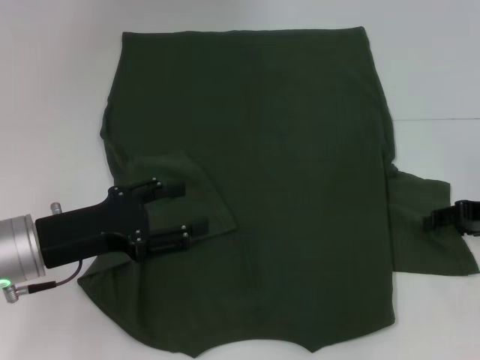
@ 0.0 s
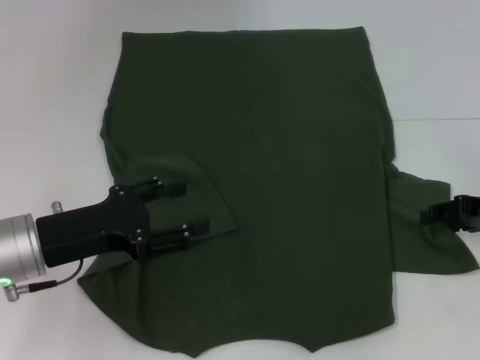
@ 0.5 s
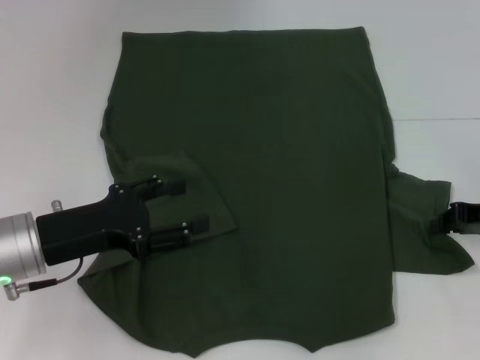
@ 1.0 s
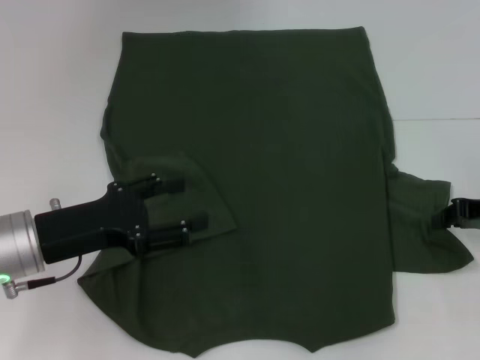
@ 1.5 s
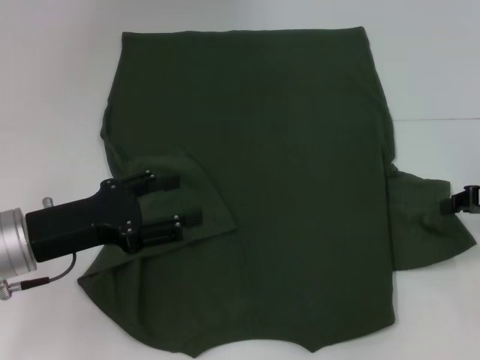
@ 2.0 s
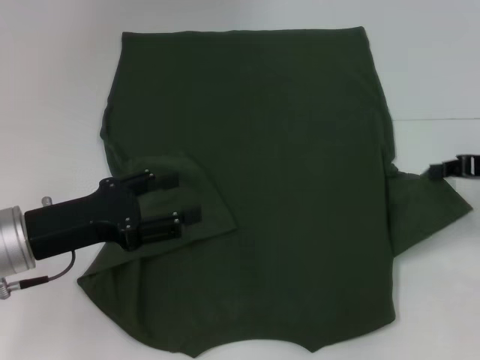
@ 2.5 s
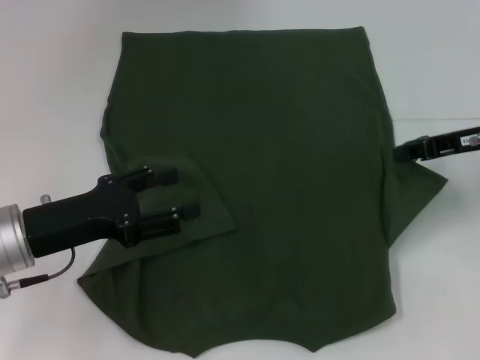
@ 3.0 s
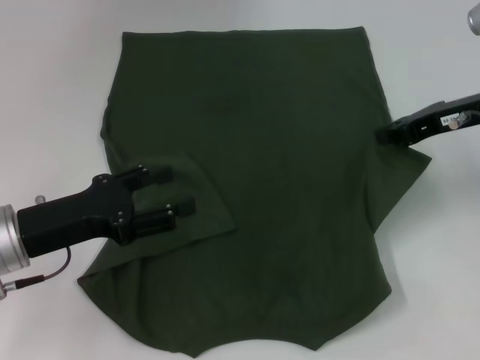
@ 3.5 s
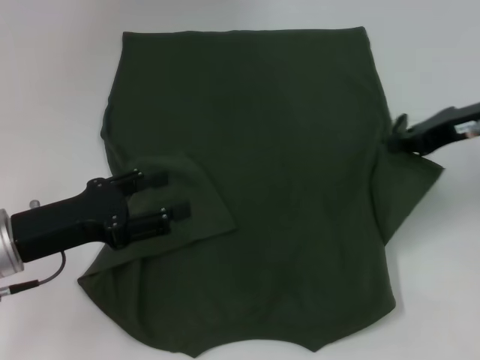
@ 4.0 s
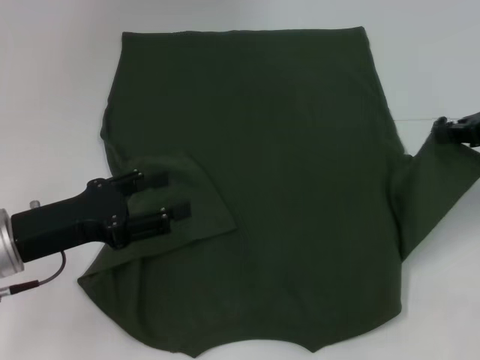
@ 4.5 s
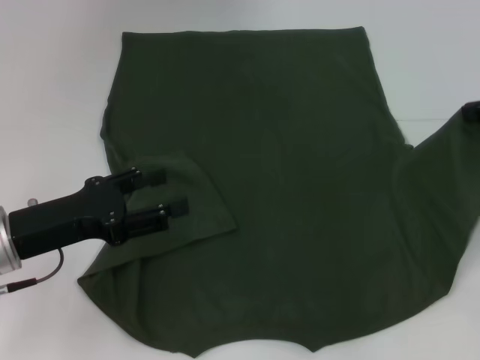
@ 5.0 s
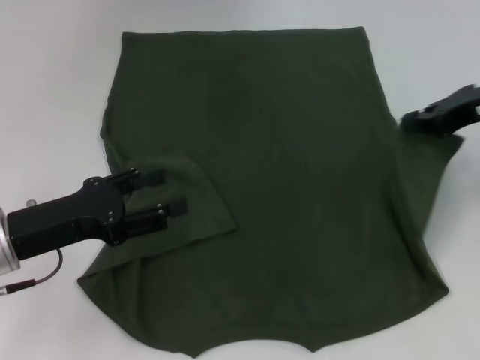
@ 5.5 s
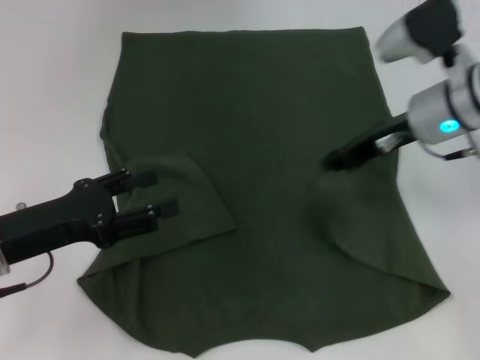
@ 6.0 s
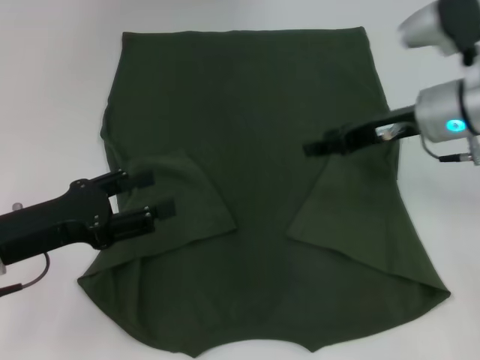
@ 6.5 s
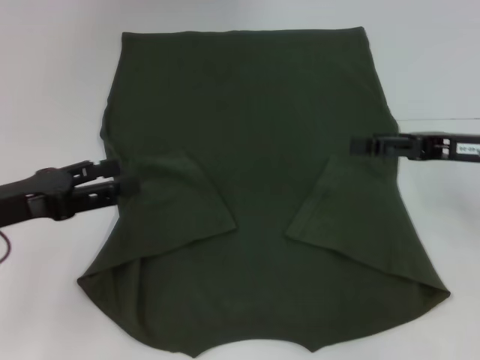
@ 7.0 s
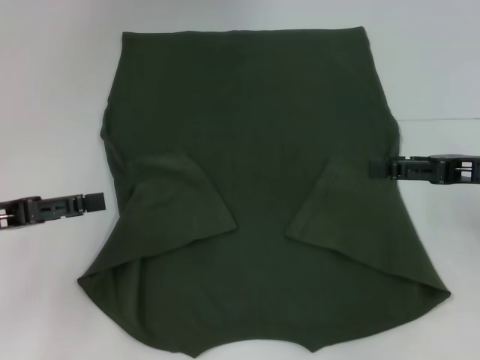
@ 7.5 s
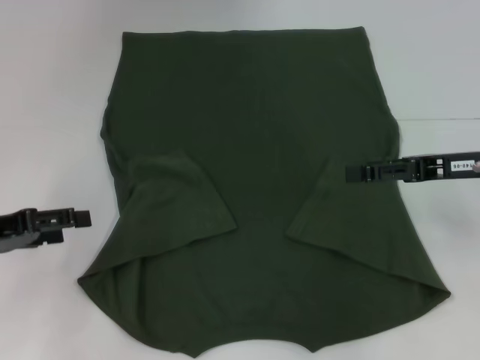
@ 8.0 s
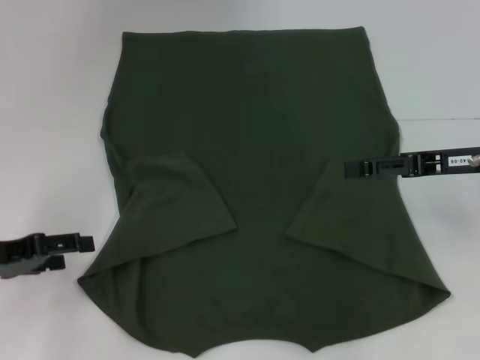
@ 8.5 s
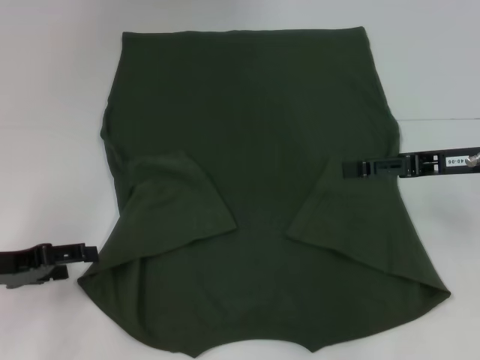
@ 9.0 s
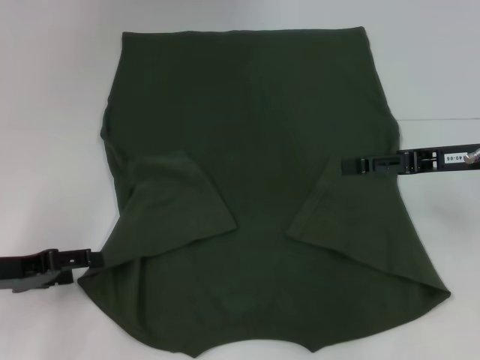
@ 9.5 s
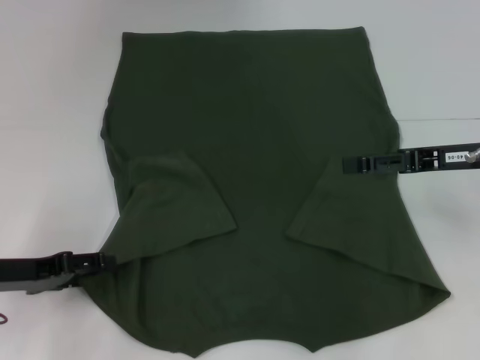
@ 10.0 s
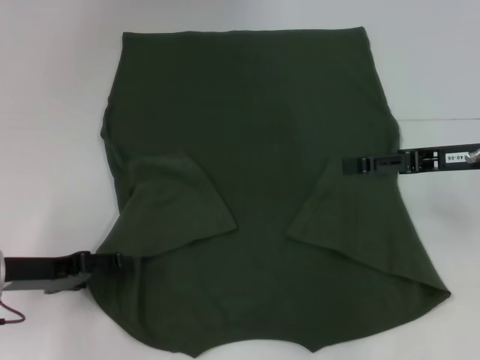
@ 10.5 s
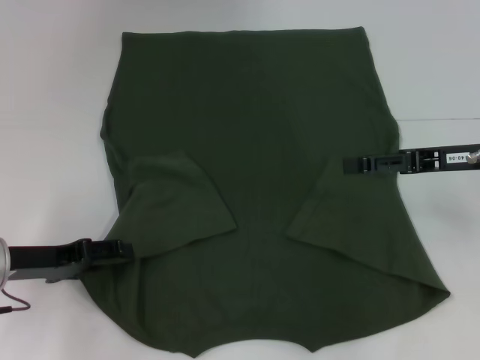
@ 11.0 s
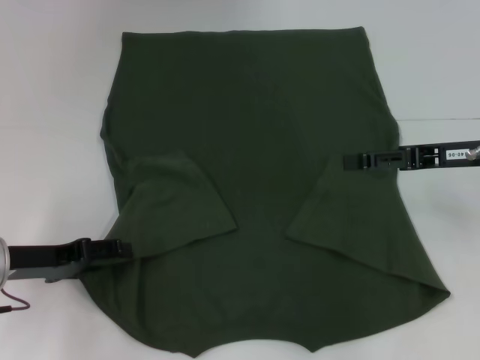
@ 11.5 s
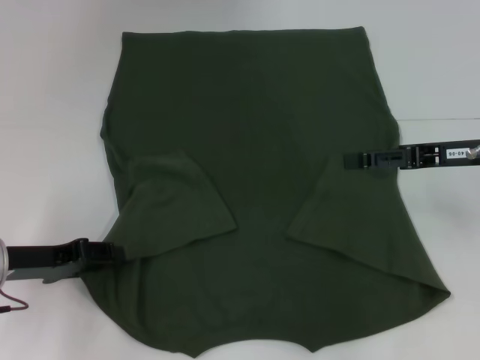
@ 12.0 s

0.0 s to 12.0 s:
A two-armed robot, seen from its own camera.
Step, 0.0 to 6.0 s: Fold the bottom right sleeve with your right hand.
0.0 to 2.0 s: The right gripper closes.
2.0 to 4.0 s: The right gripper shifts roughly 10 cm upward and to the left.
4.0 to 6.0 s: The right gripper goes roughly 10 cm to the left.
6.0 to 8.0 s: The right gripper is displaced to the right and backward by some 10 cm, and opens its fingers; the left gripper travels to the left by some 5 cm.
8.0 to 10.0 s: The left gripper heads downward, covering some 5 cm.
10.0 to 12.0 s: The grippers stay close to where they were, moving slightly.

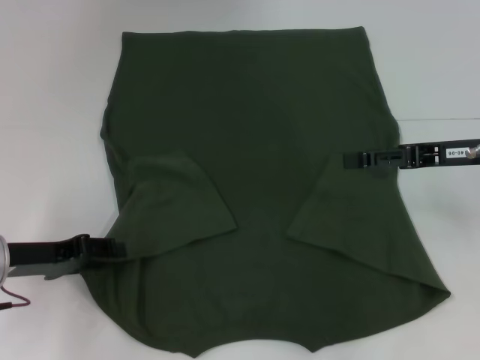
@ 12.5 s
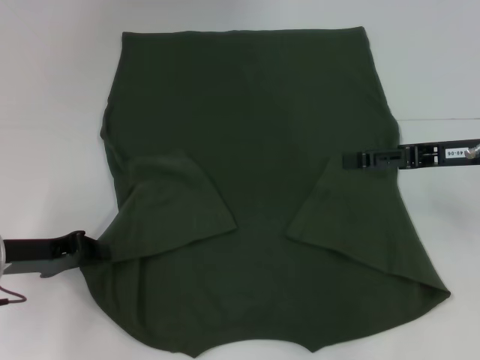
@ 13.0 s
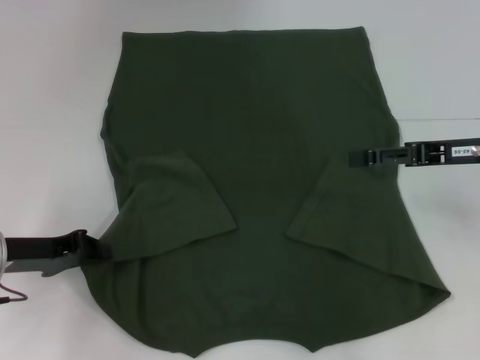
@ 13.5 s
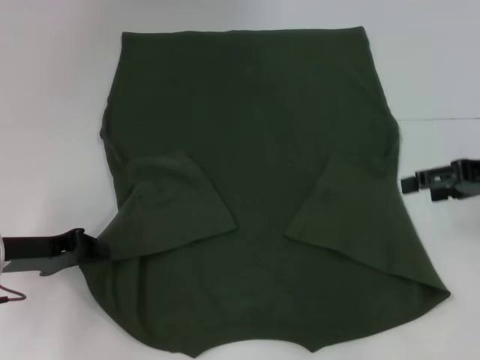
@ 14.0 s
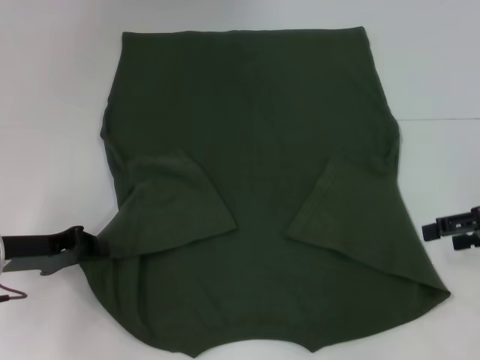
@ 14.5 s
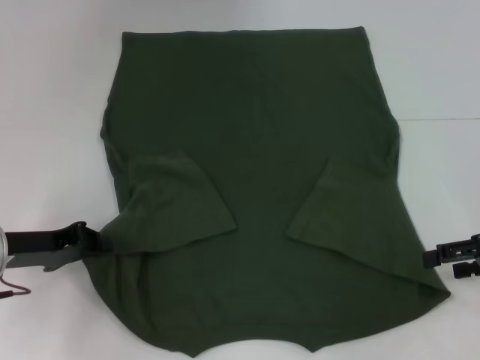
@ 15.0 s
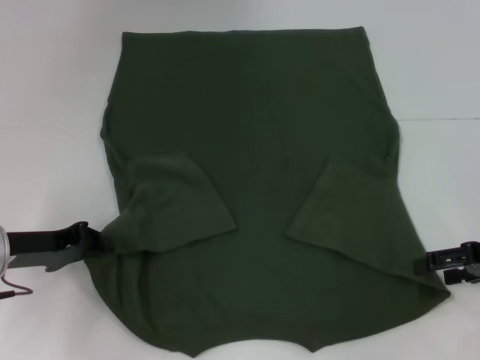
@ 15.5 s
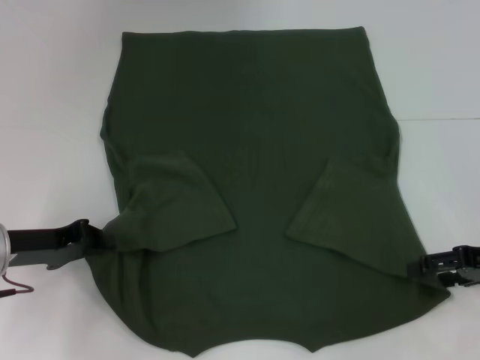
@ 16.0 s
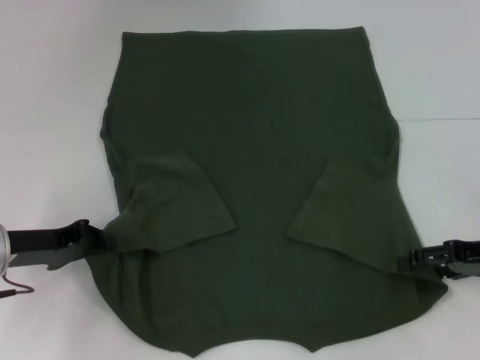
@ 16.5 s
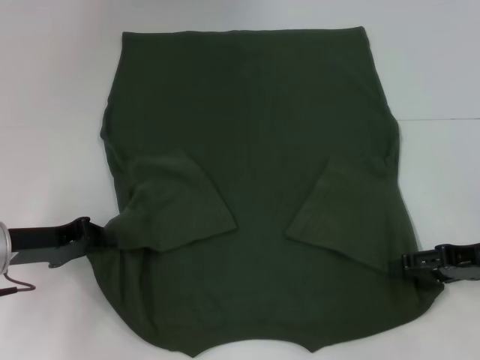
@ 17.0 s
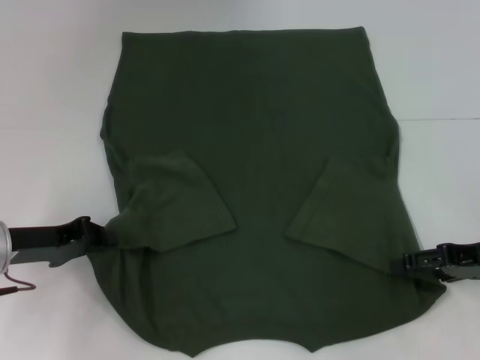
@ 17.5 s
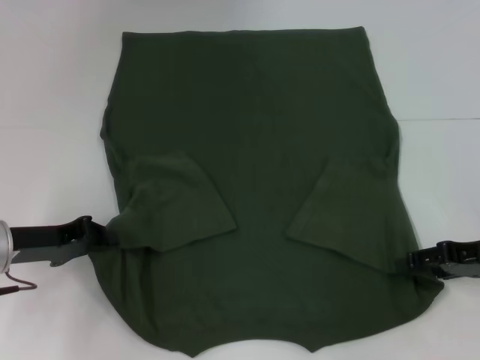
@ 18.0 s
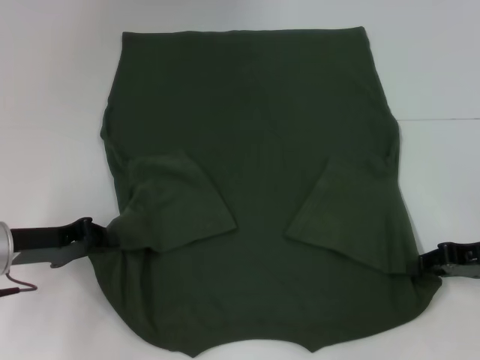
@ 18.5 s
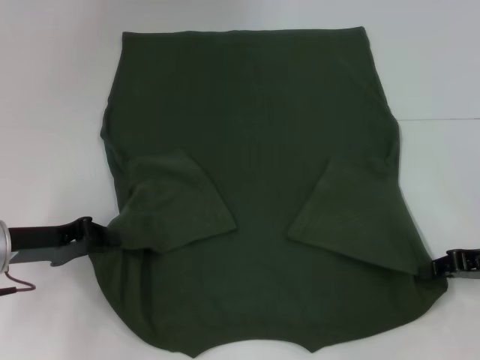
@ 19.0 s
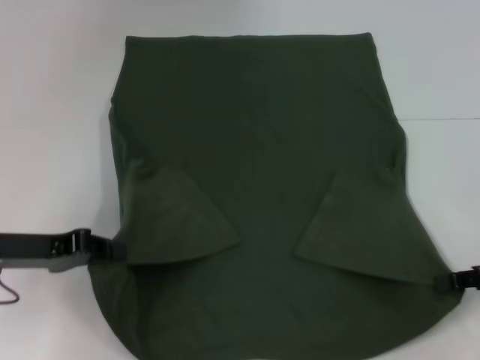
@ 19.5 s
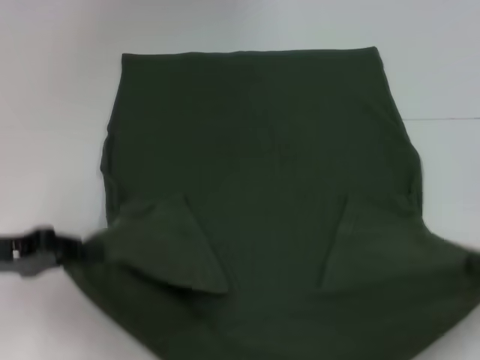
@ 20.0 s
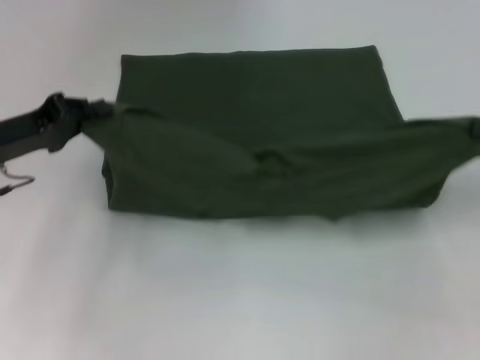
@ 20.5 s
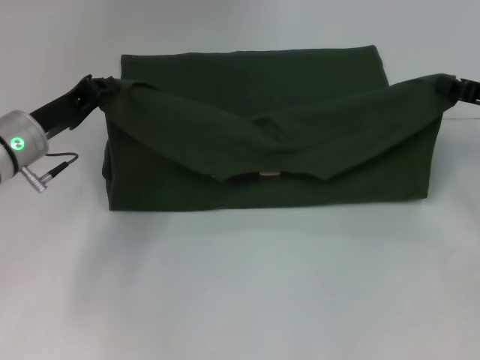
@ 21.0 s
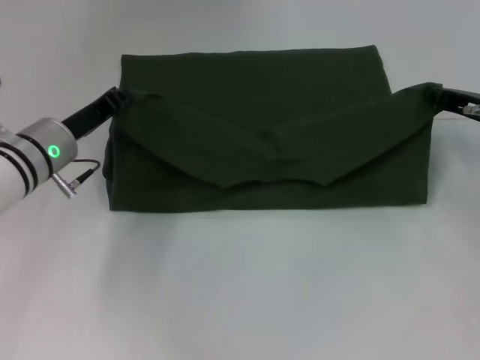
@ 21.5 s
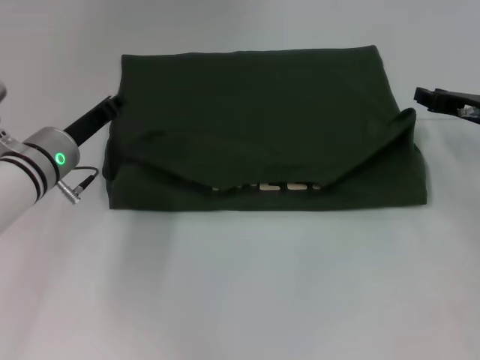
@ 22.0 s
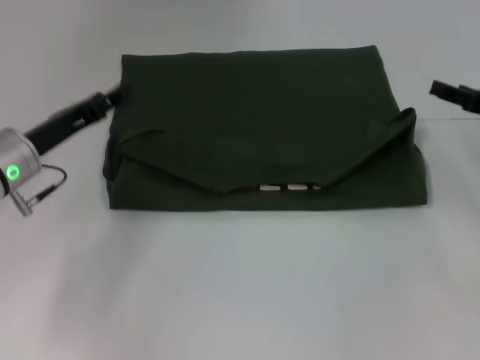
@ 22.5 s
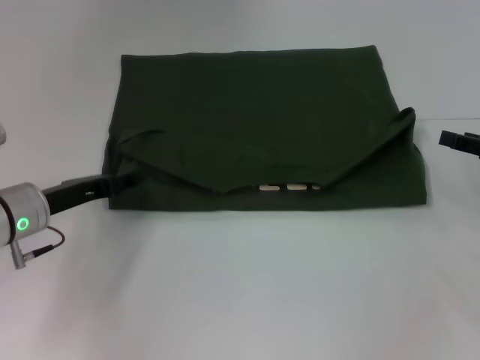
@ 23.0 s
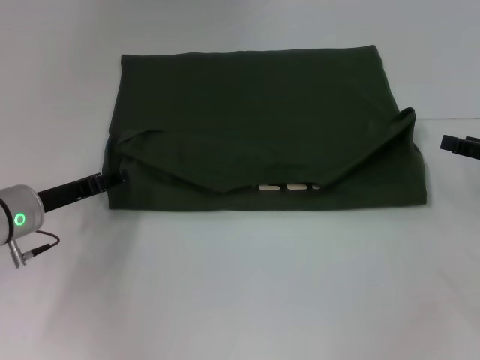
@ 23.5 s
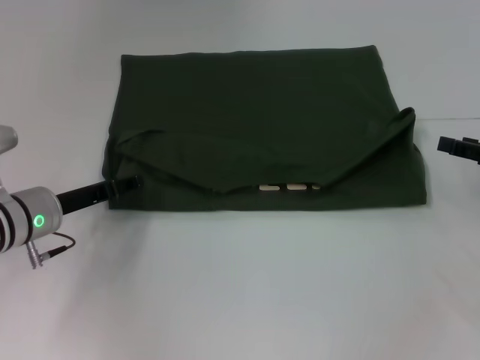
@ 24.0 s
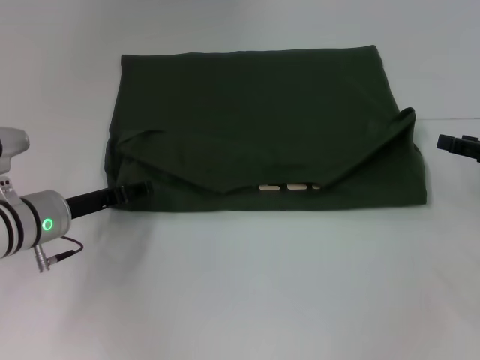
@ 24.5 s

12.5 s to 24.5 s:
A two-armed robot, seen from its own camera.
Step, 14.0 to 18.5 s: Grab the bottom right corner with your right hand.
Step, 19.0 to 22.0 s: Fold the clothes with your left hand.
Step, 19.0 to 22.0 s: Fold the clothes with your right hand.
12.5 to 14.5 s: The left gripper closes. Meanwhile the right gripper is displaced to the right by roughly 5 cm.
14.5 to 16.5 s: The grippers stay close to where they were, moving slightly.
16.5 to 18.5 s: The right gripper closes up.
18.5 to 20.5 s: The left gripper heads upward, covering about 5 cm. The right gripper heads upward and to the right, covering approximately 10 cm, and closes its fingers.
20.5 to 22.5 s: The right gripper opens its fingers. Meanwhile the left gripper opens up.
22.5 to 24.5 s: The left gripper is displaced downward by roughly 5 cm.

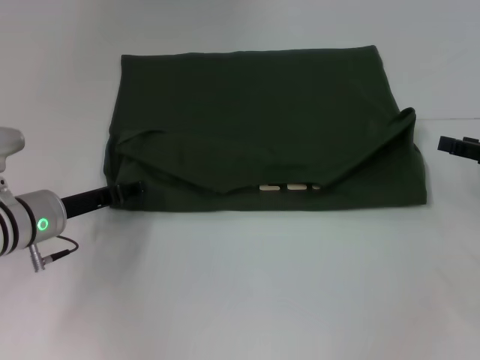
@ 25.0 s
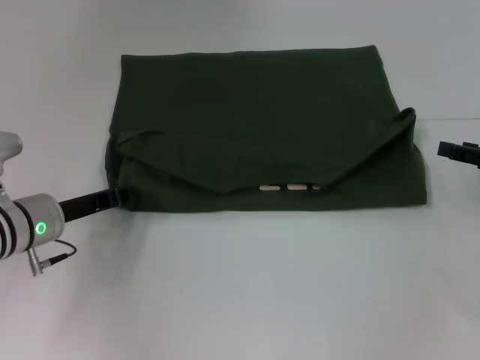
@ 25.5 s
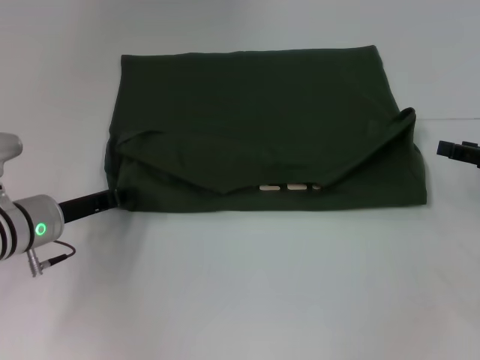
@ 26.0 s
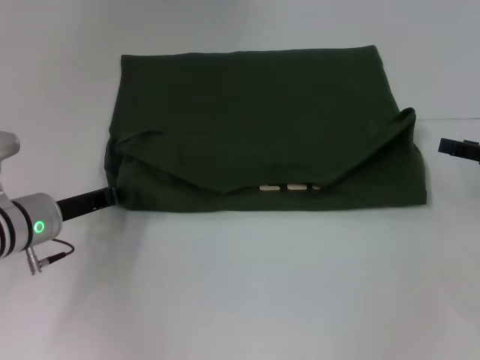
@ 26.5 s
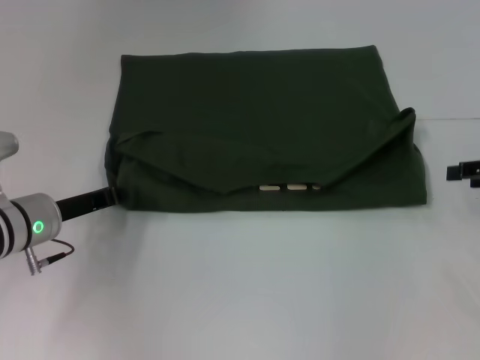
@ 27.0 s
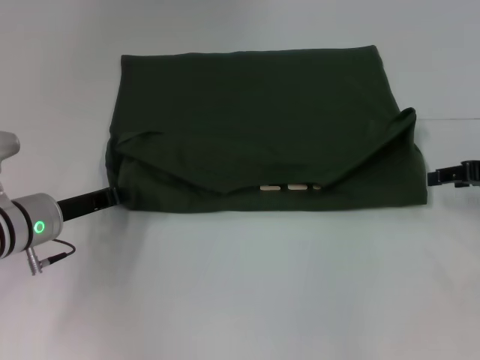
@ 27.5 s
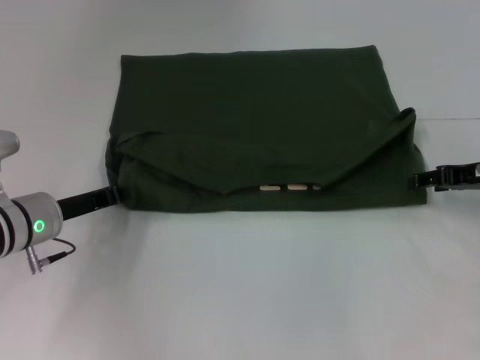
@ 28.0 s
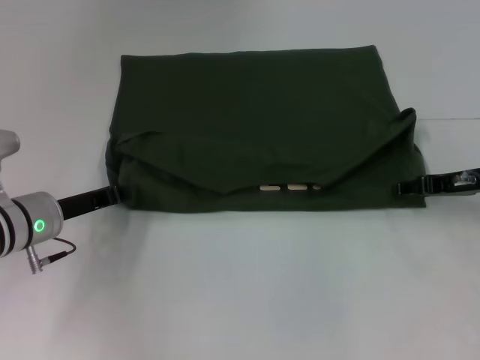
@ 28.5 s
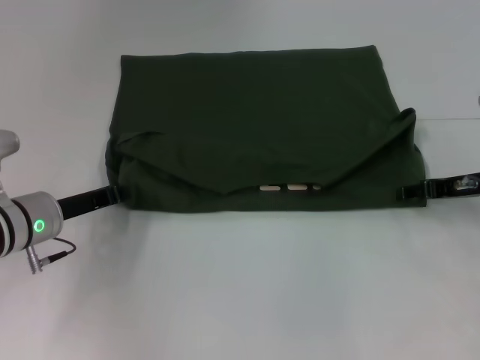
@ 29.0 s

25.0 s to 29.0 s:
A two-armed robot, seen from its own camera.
25.0 to 27.0 s: The left gripper closes up.
27.0 to 29.0 s: The right gripper travels to the left by approximately 5 cm.
